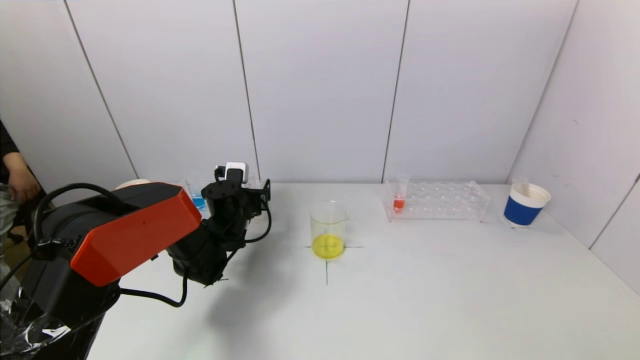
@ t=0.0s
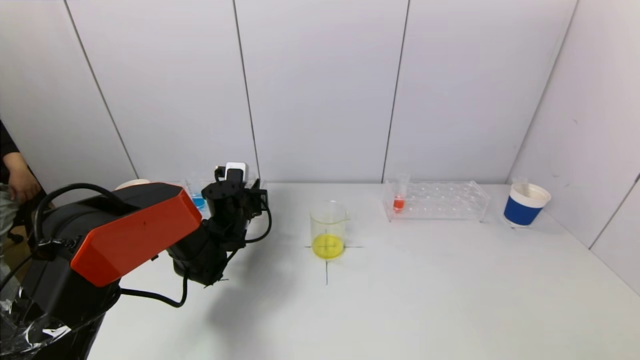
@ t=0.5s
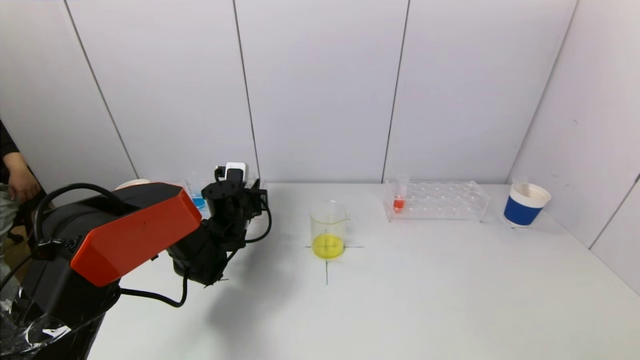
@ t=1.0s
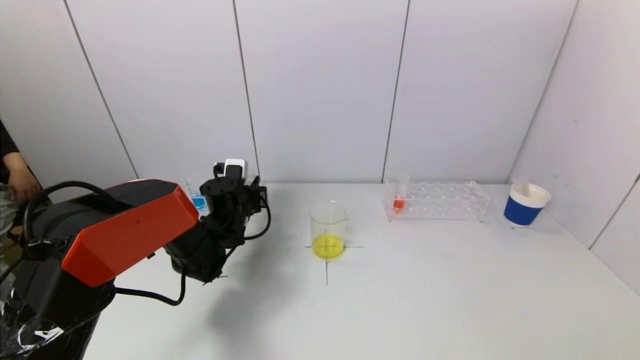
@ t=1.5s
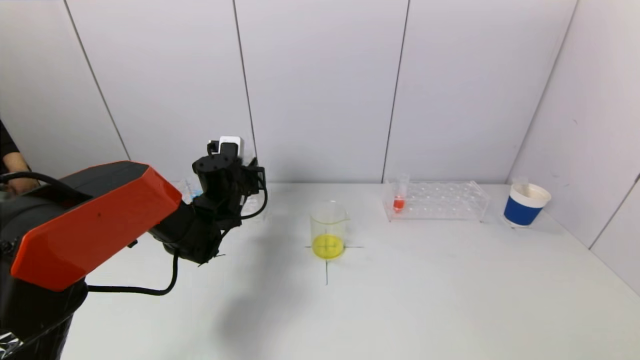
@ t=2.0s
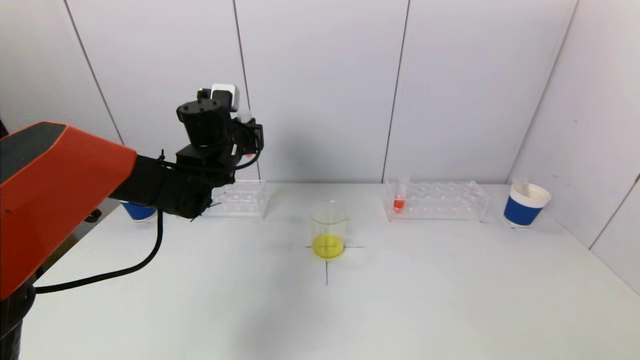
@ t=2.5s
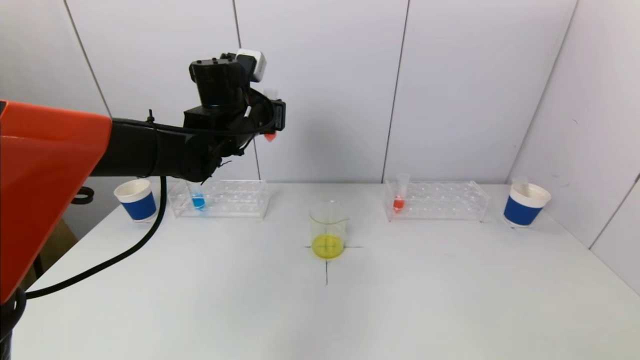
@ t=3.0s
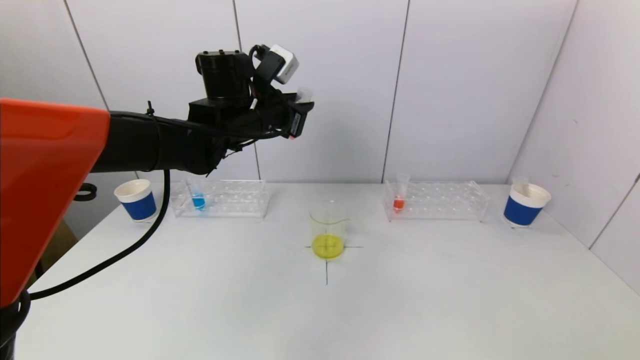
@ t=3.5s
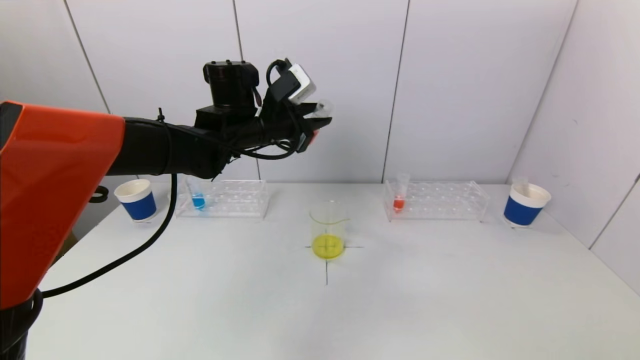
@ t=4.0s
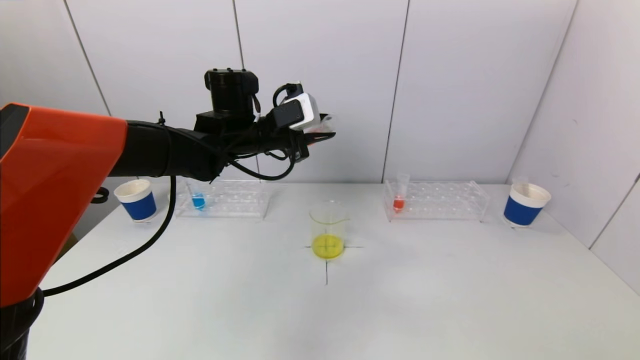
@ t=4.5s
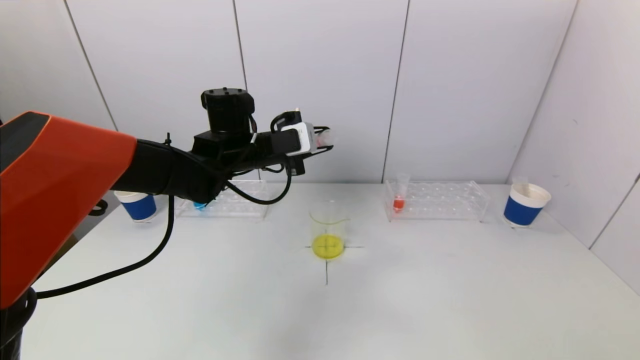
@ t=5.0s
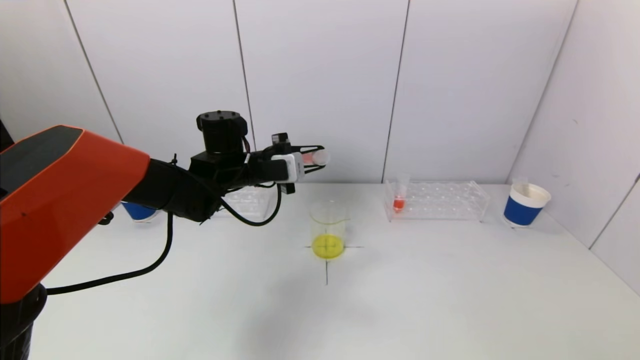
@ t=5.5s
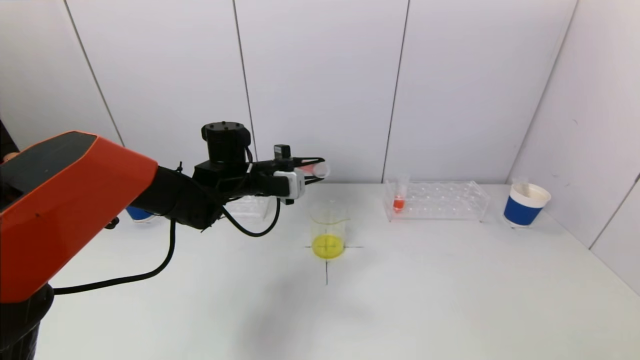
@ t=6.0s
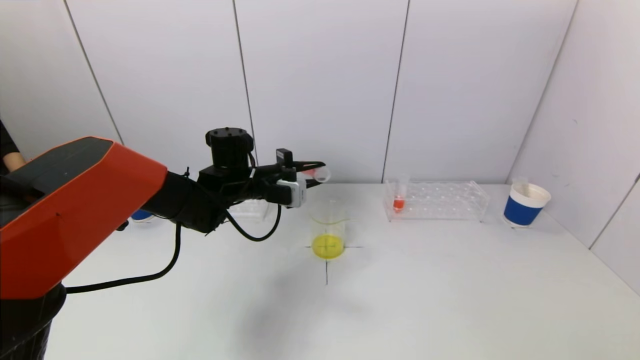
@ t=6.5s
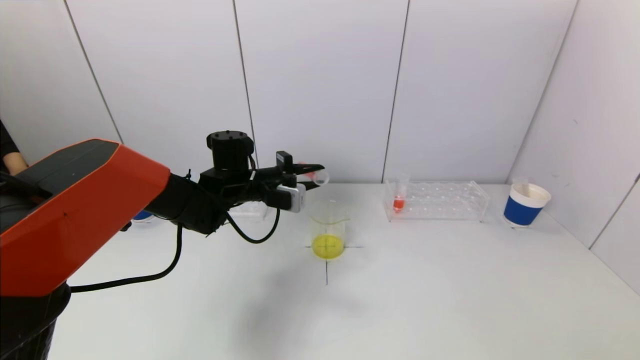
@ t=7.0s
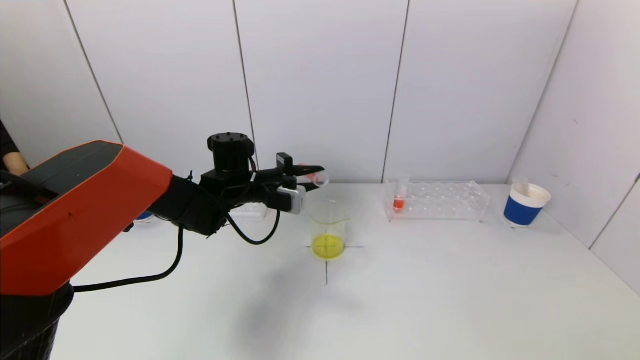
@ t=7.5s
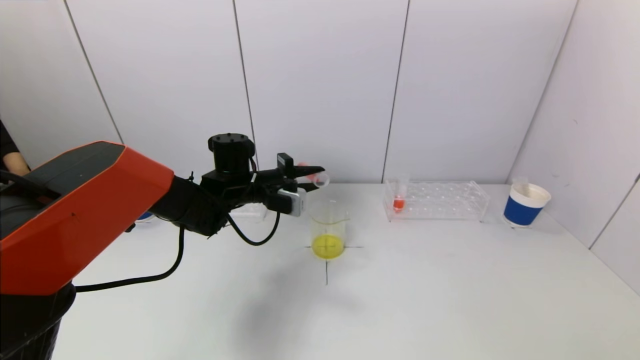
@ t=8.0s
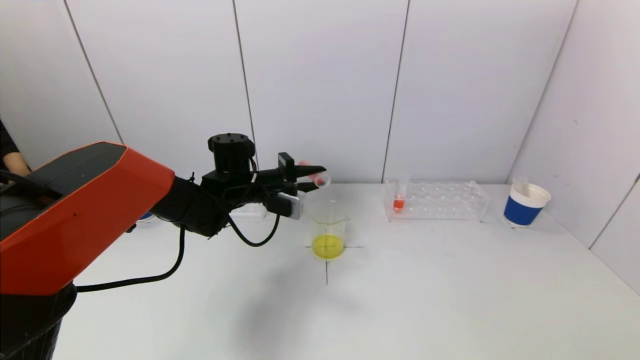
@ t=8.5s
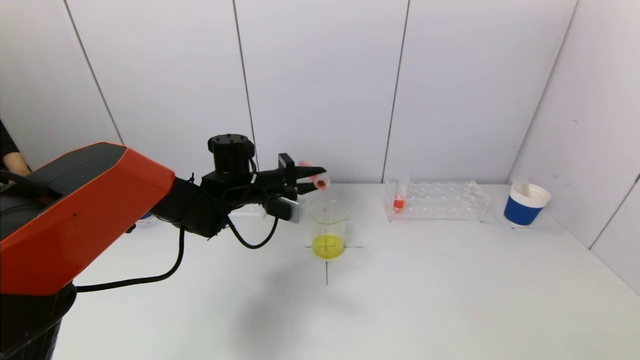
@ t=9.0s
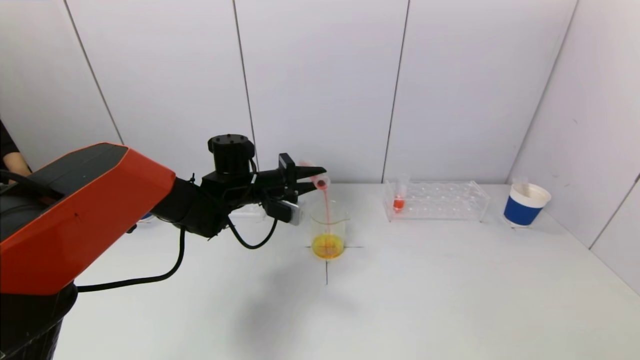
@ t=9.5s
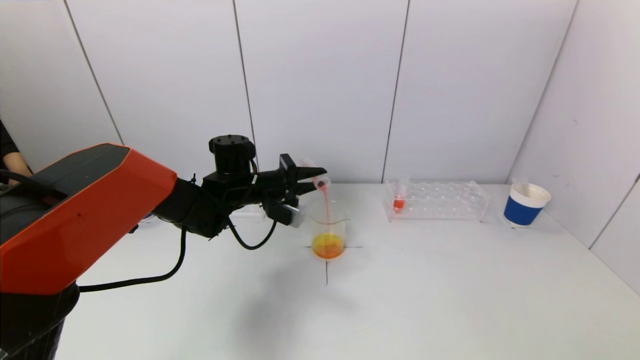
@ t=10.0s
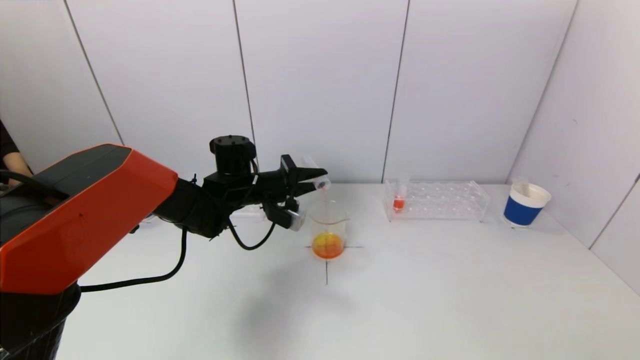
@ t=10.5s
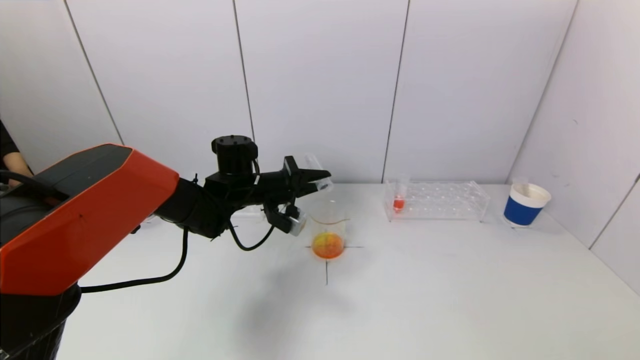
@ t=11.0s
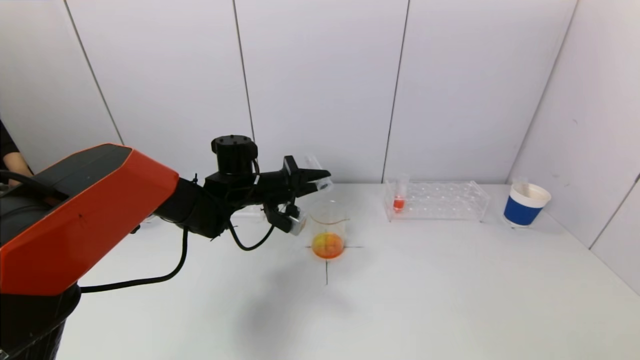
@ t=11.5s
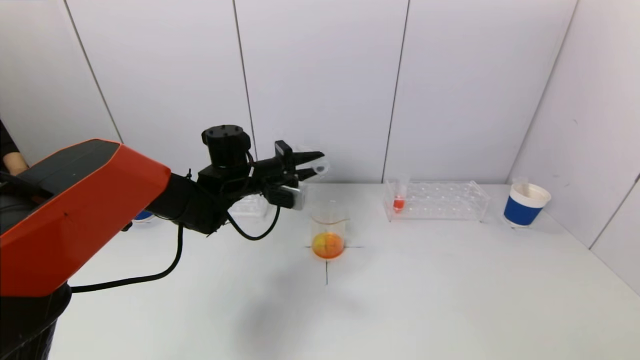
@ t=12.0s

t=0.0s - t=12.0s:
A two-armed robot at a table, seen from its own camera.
Task of the whole recording: pick up a test tube with pigment on left test tube rack and a test tube with pigment on right test tube rack by grippers and pour them into the beaker.
Step, t=1.0s - t=11.5s: Pour the red reagent into the graduated cylinder with the left gripper.
t=0.0s - t=2.0s: The left gripper moves upward, about 5 cm, and closes.
t=2.0s - t=4.0s: The left gripper heads upward and to the right, covering some 15 cm.
t=4.0s - t=6.0s: The left gripper moves downward, about 10 cm.
t=6.0s - t=8.0s: The grippers move only a little.
t=8.0s - t=10.0s: The grippers stay close to where they were, moving slightly.
t=10.0s - t=12.0s: The grippers stay close to where they were, moving slightly.

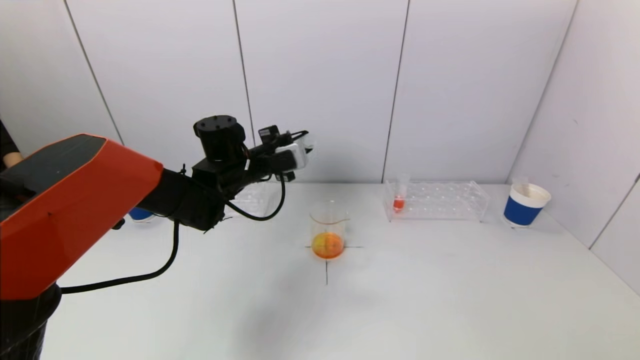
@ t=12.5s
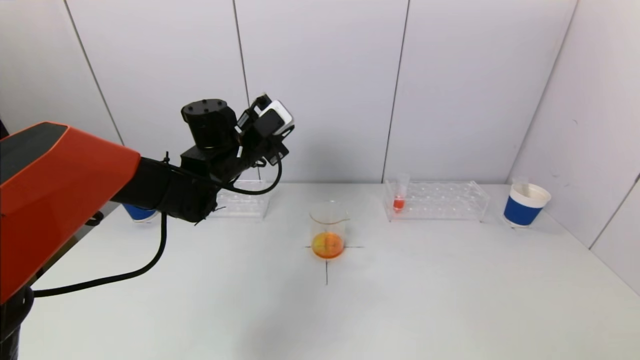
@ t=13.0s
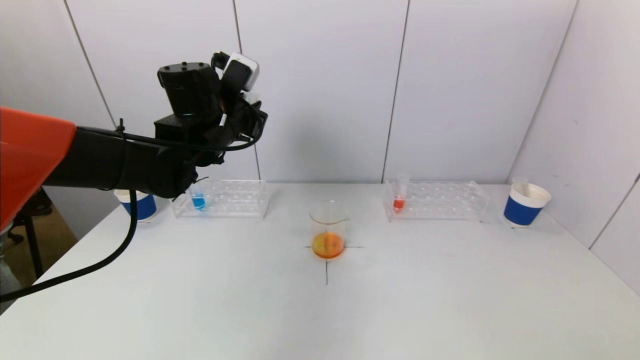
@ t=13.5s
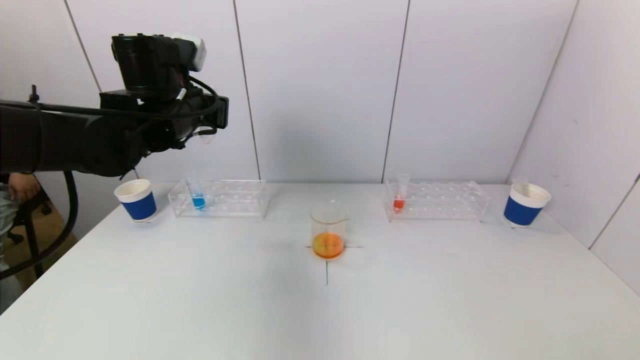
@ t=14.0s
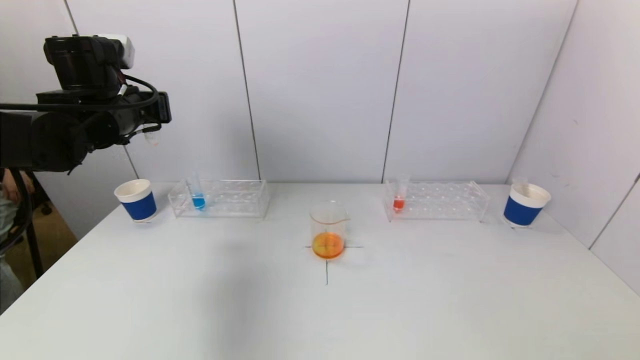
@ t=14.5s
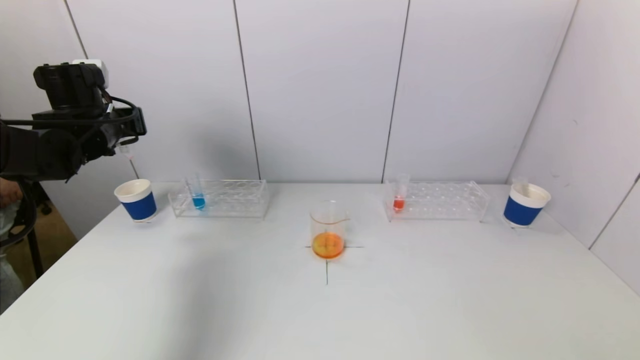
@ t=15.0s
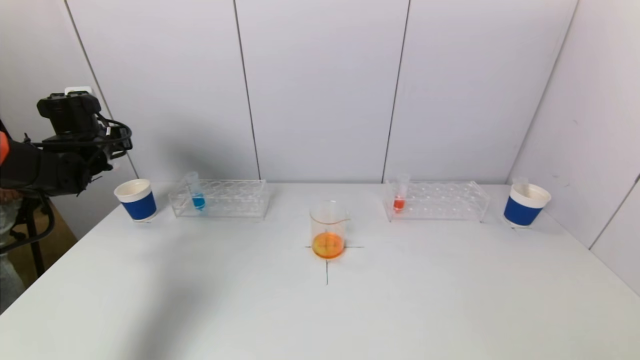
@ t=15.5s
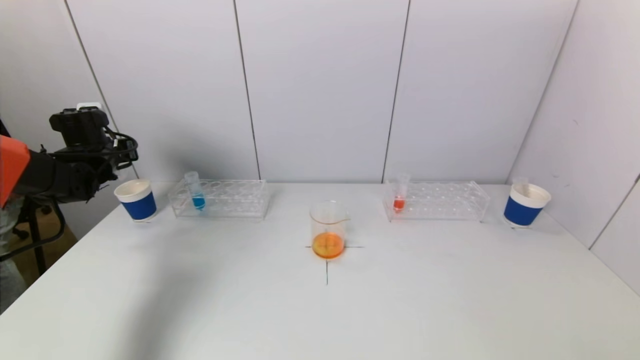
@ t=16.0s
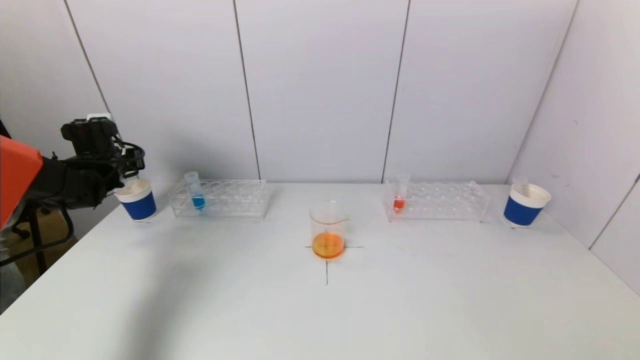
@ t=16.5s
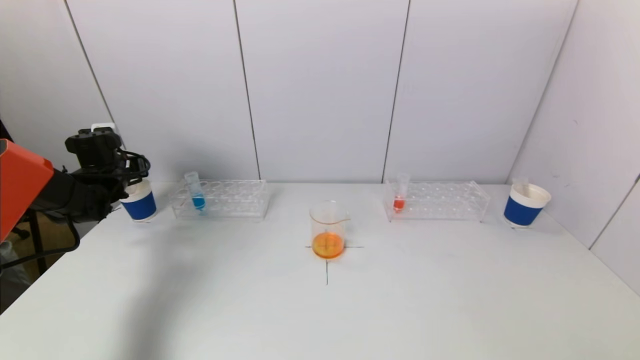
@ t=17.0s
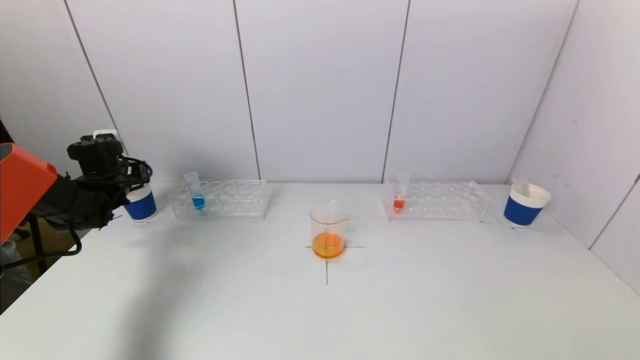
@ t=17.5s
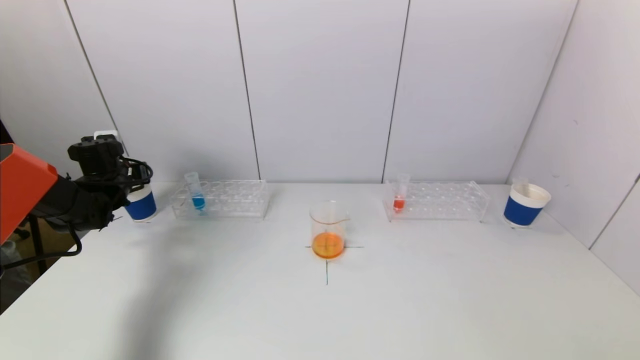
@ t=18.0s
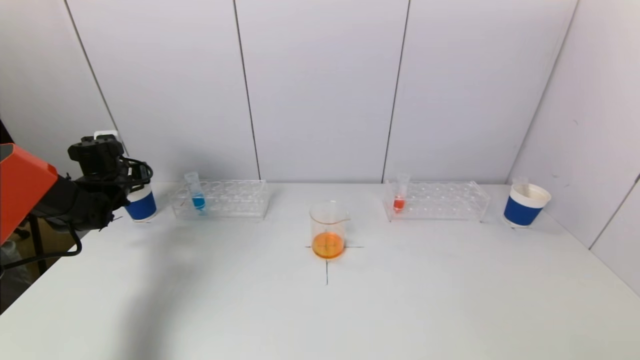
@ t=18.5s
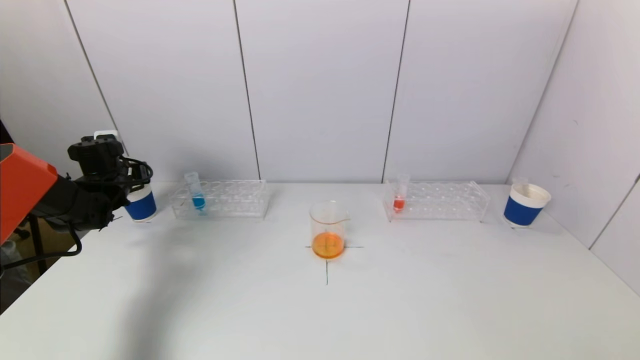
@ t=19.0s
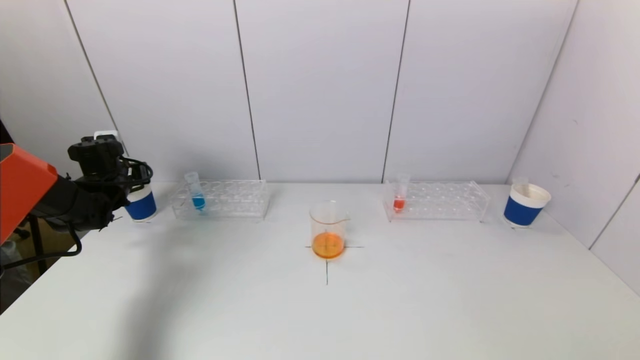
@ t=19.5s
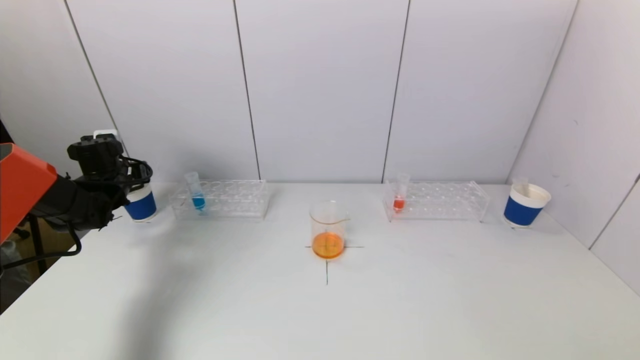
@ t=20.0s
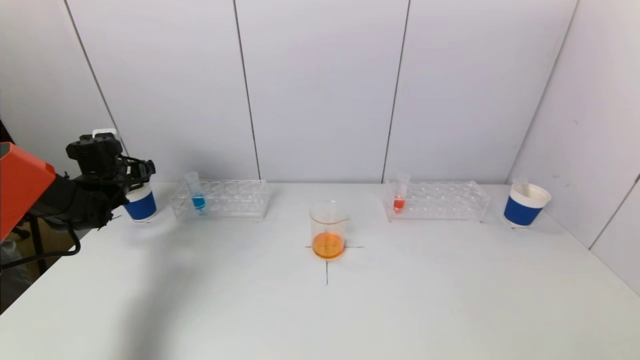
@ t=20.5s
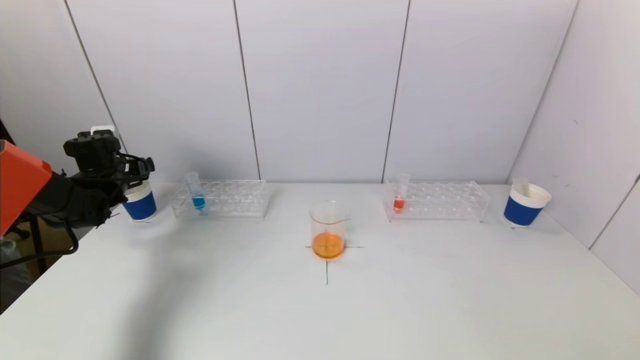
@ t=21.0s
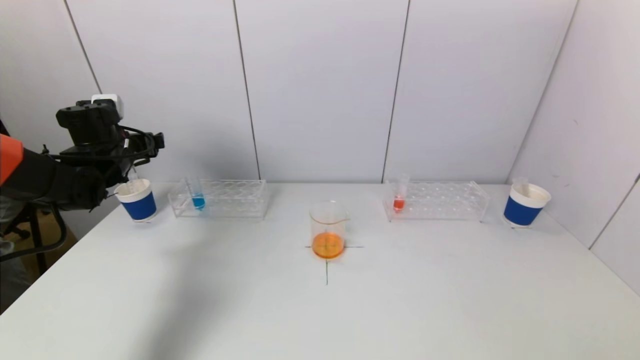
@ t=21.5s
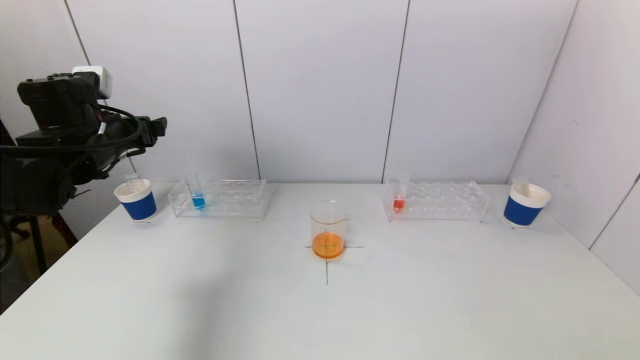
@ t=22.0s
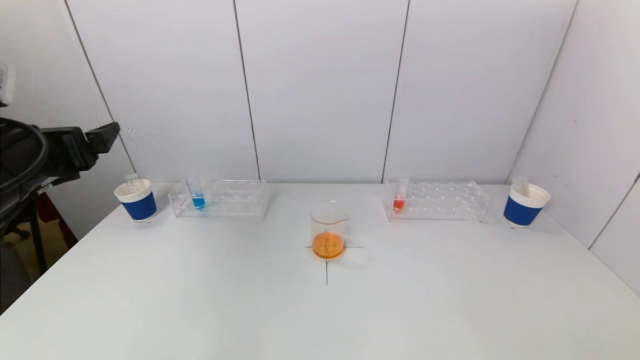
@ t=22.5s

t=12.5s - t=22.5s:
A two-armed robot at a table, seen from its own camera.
Task of the whole recording: pick up a test tube with pigment on left test tube rack and a test tube with pigment on right test tube rack by grippers and pour them into the beaker.
Step, t=12.5s - t=20.0s: Place the test tube into the paper cup with the left gripper.
t=12.5s - t=14.5s: The left gripper travels to the left and upward by about 20 cm.
t=14.5s - t=16.5s: The left gripper heads downward, to the left and forward, covering roughly 20 cm.
t=16.5s - t=18.5s: The grippers move only a little.
t=20.5s - t=22.5s: The left gripper is displaced backward, upward and to the right by roughly 30 cm.
